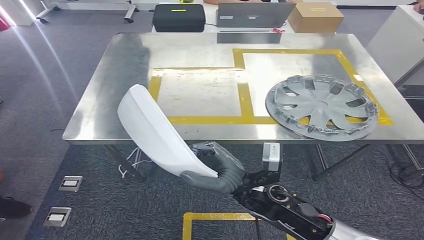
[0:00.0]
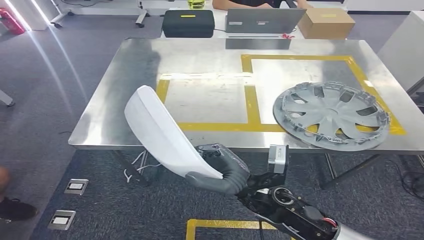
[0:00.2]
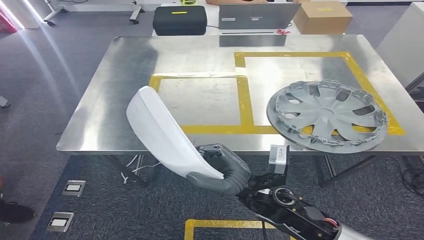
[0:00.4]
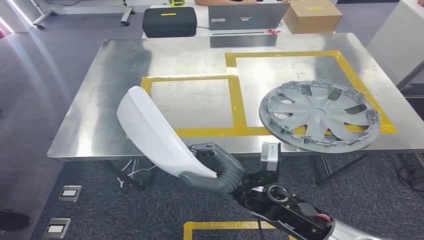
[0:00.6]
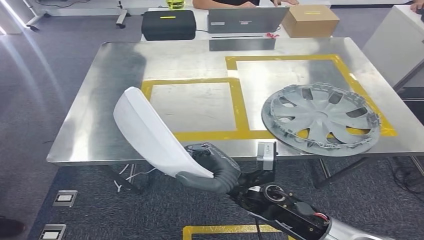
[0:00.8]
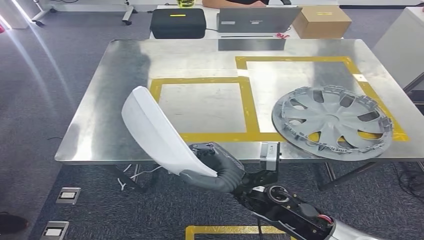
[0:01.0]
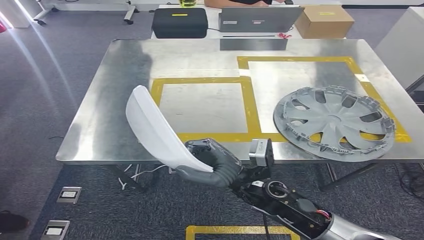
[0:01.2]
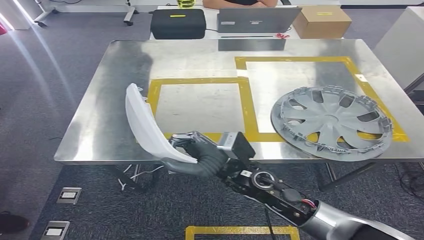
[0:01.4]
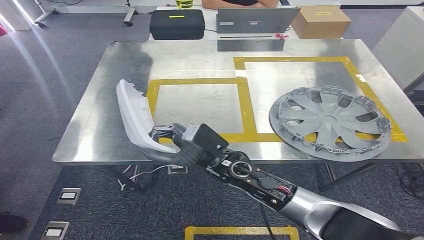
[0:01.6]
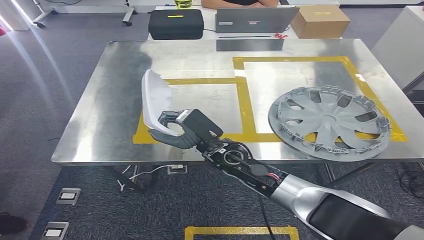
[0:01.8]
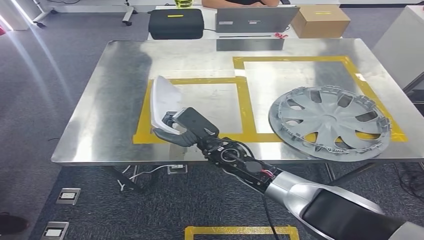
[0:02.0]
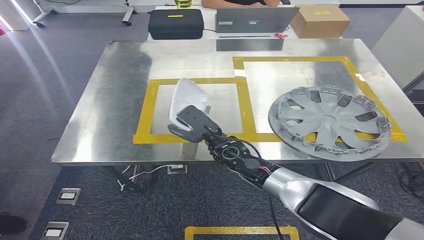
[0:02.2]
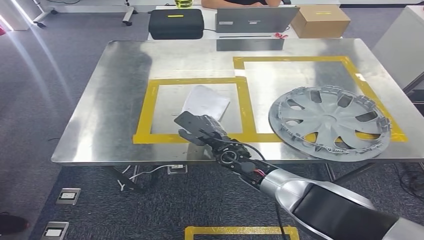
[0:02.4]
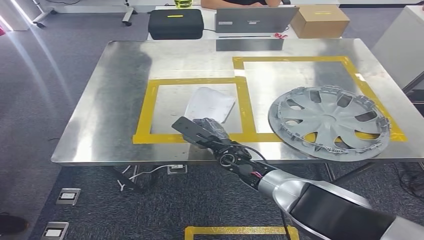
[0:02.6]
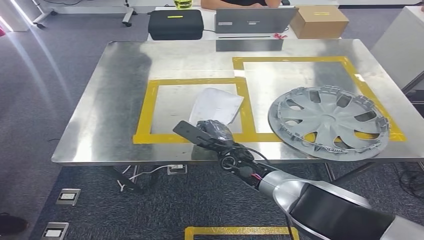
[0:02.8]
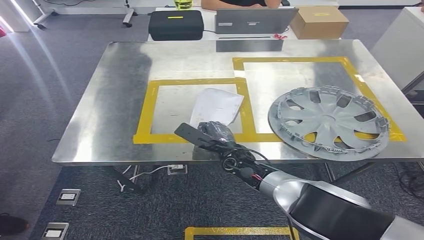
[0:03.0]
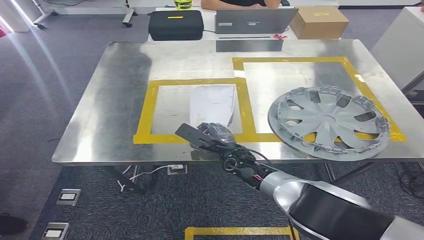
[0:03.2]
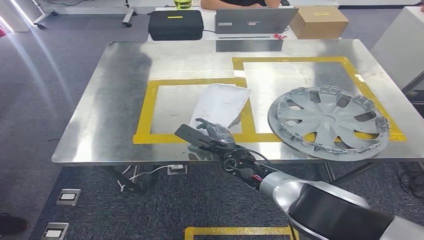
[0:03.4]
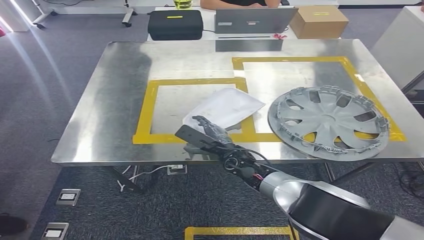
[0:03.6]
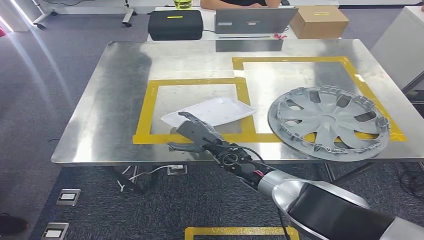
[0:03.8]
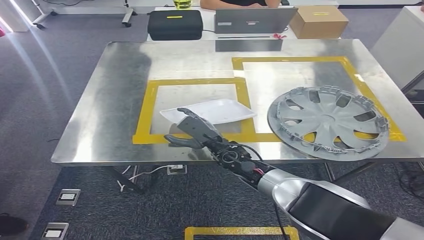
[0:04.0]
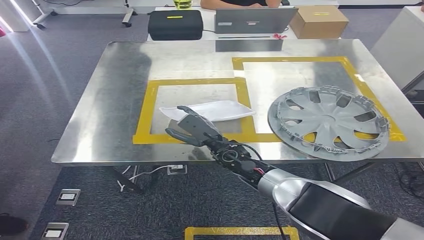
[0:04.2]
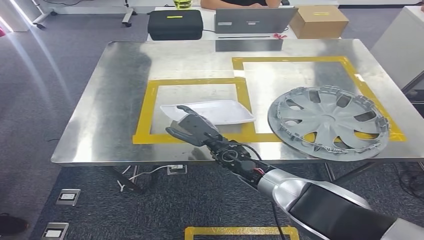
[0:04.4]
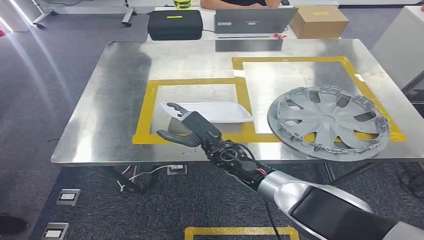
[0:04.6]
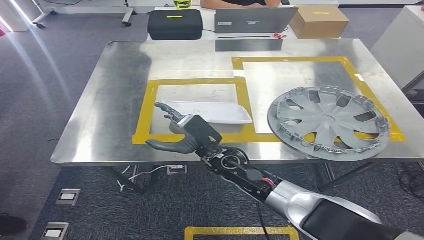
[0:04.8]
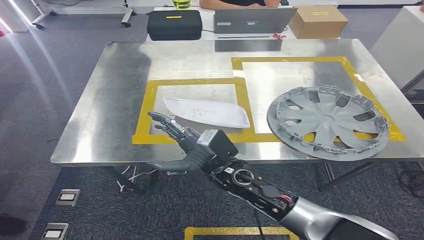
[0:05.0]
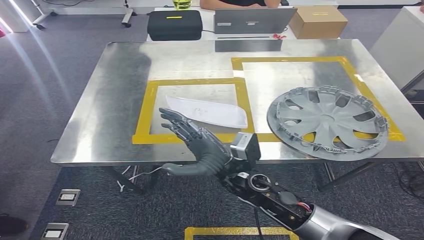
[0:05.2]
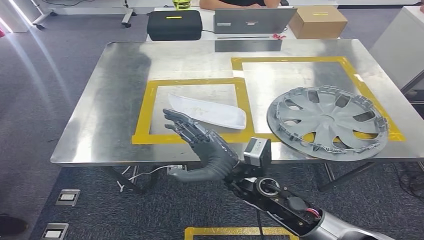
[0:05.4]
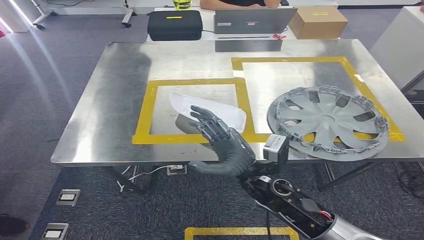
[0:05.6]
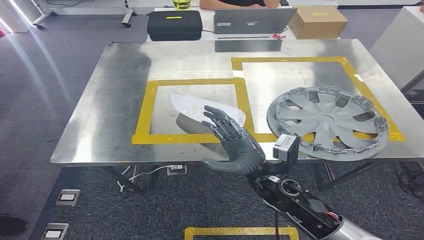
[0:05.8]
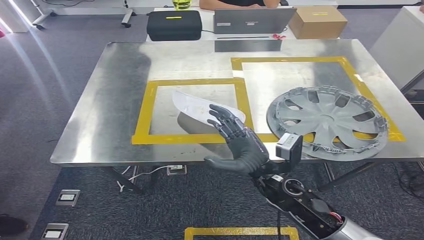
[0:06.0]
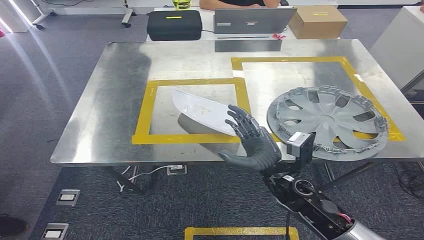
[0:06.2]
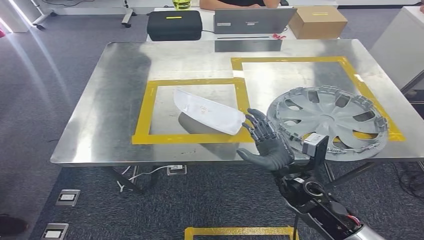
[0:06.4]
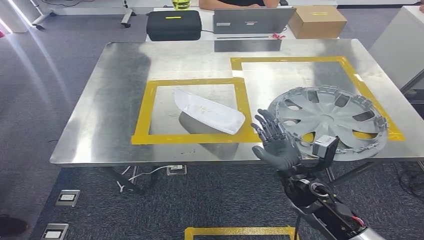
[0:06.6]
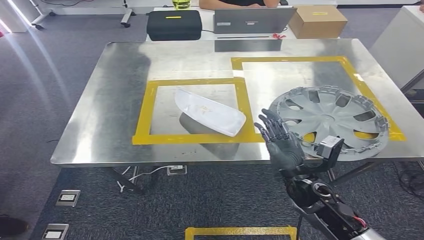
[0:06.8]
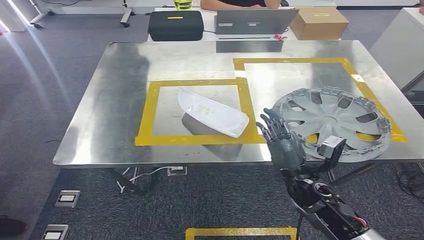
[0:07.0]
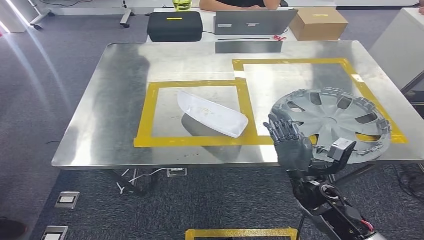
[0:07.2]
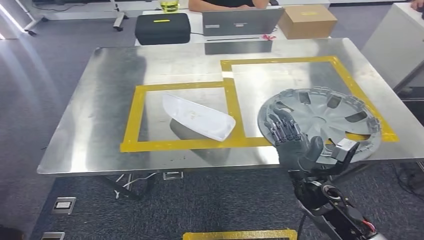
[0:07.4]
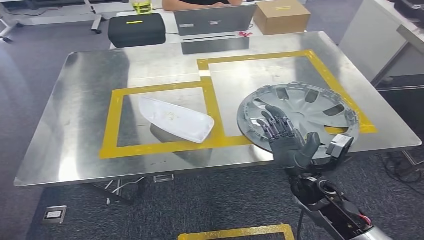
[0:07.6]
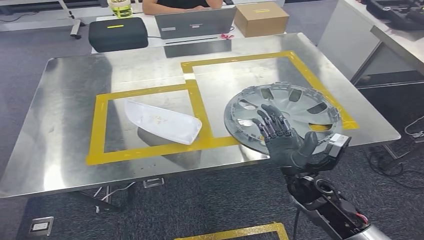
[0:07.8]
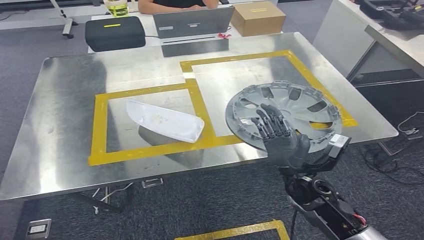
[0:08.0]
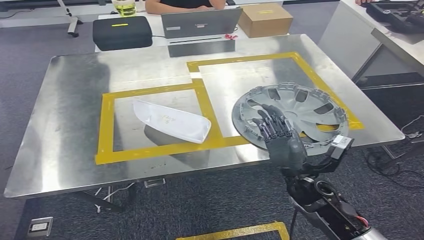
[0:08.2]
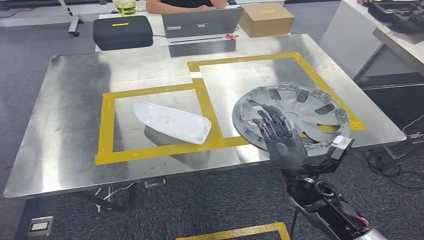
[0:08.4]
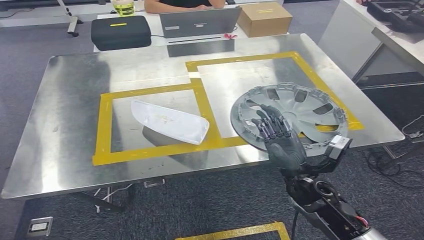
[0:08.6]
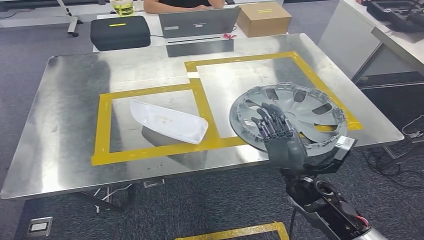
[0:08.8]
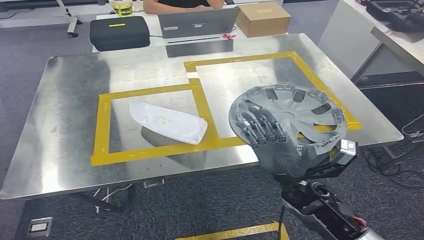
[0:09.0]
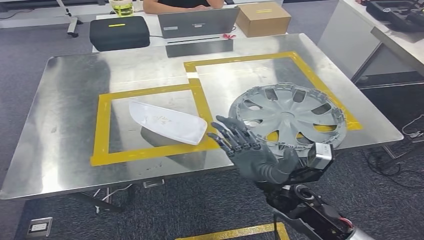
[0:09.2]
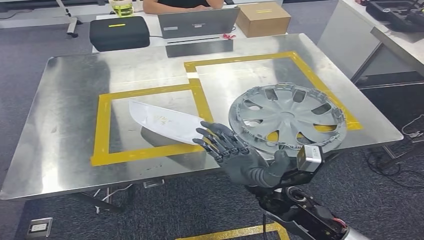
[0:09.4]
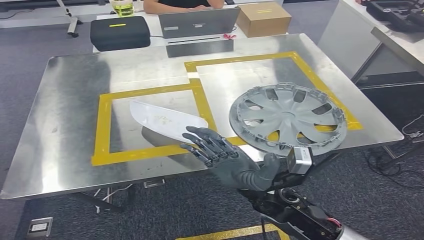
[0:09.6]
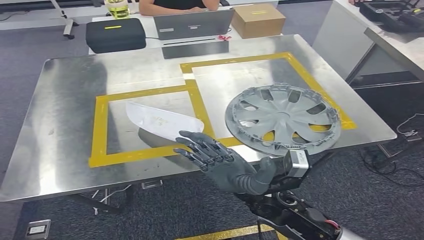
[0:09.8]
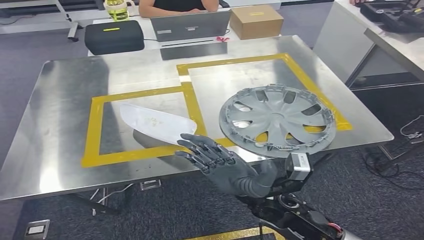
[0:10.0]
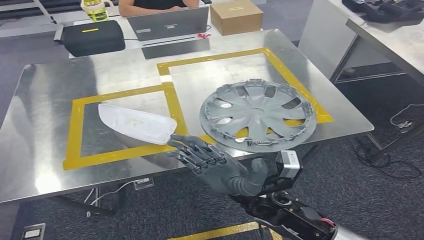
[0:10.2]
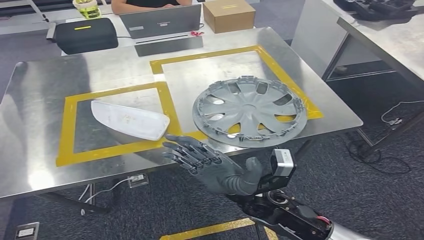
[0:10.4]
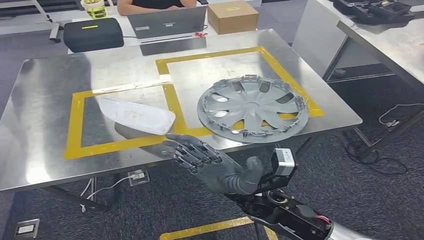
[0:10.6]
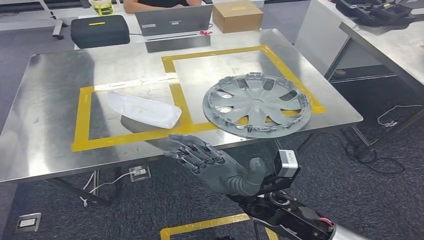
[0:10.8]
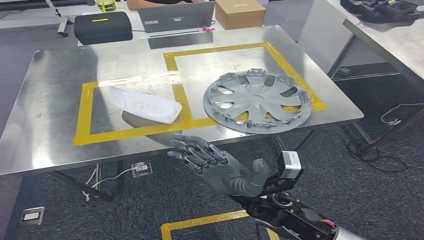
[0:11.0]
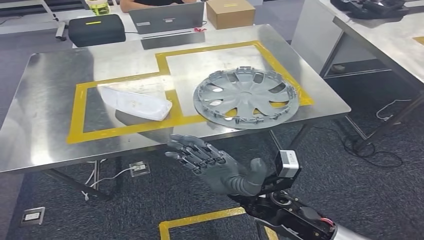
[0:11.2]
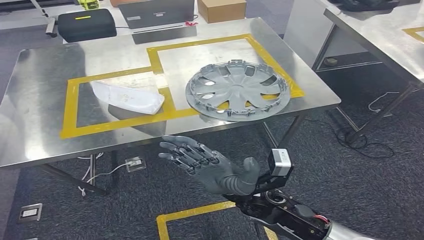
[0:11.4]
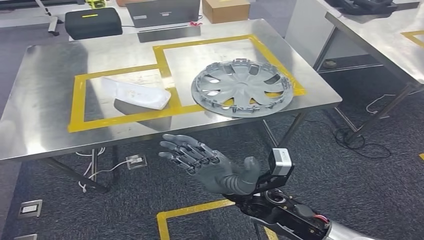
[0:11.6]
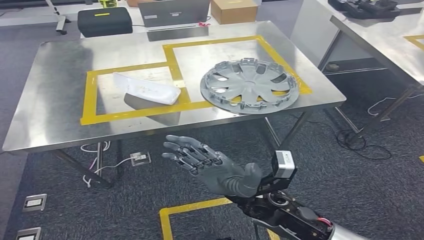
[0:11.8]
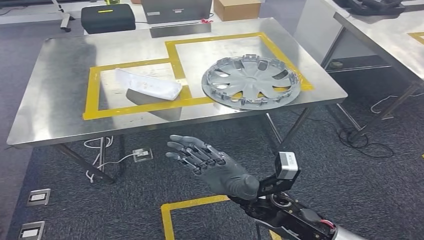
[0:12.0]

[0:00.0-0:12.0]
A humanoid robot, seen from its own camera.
Step, 0:02.2 to 0:10.8: Insert the small component into the corresponding slot on the workbench.
0:01.6 to 0:03.0: The right hand is displaced downward by some 10 cm.
0:04.4 to 0:06.0: The right hand moves backward and to the right, approximately 15 cm.

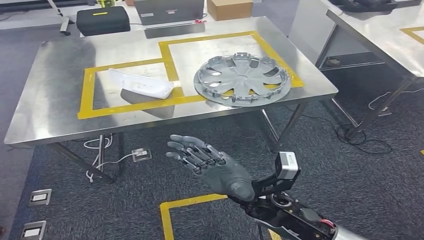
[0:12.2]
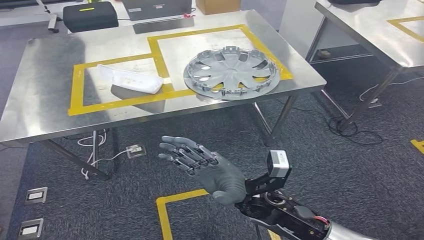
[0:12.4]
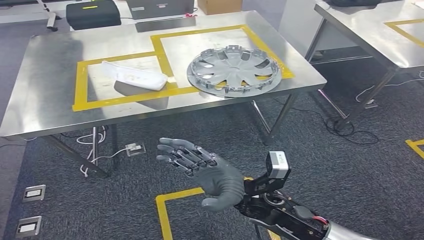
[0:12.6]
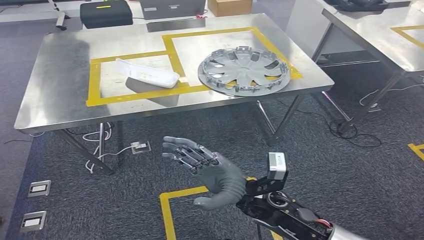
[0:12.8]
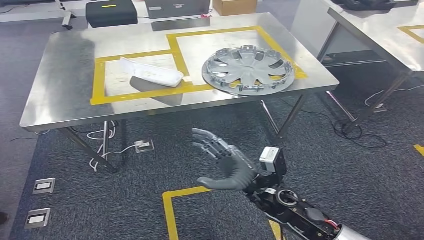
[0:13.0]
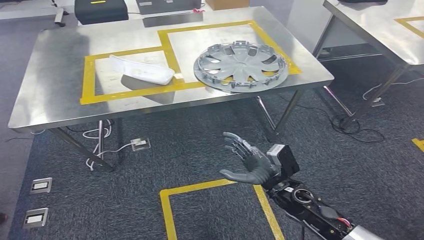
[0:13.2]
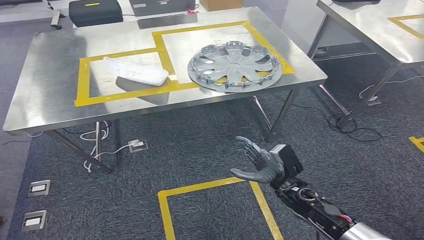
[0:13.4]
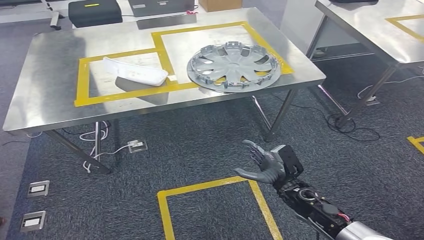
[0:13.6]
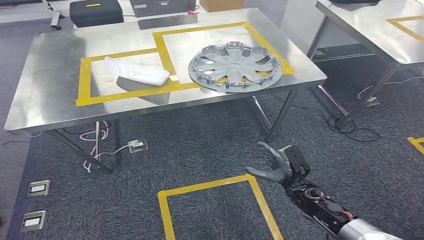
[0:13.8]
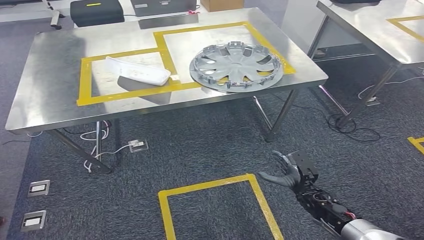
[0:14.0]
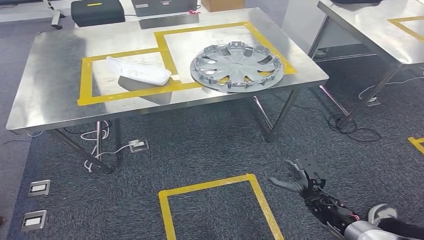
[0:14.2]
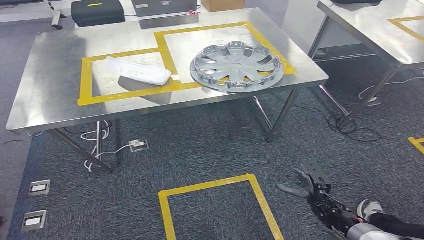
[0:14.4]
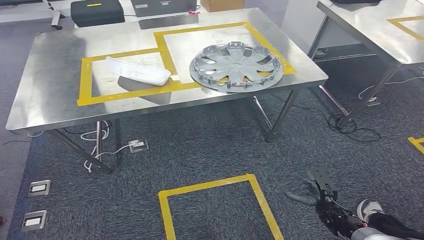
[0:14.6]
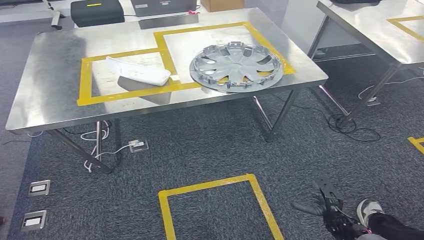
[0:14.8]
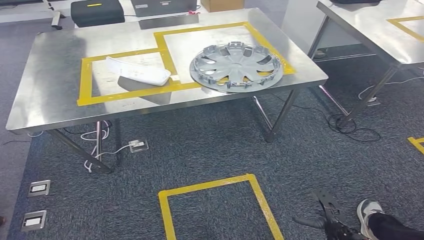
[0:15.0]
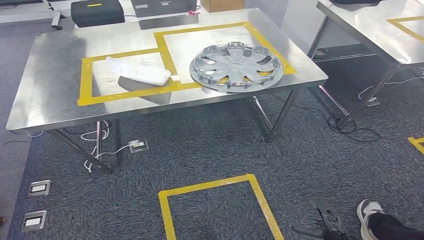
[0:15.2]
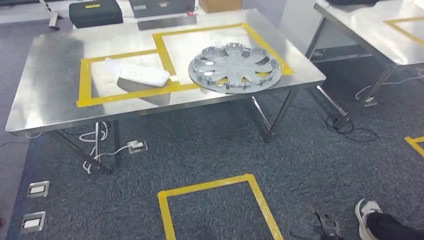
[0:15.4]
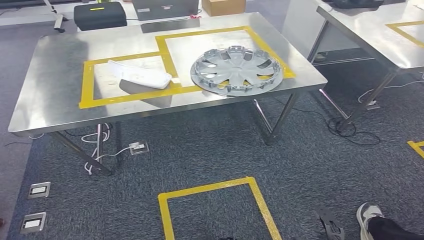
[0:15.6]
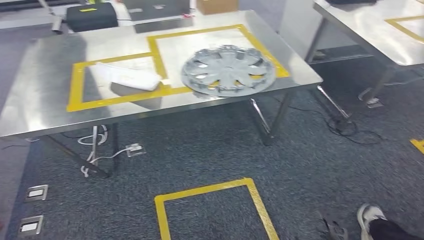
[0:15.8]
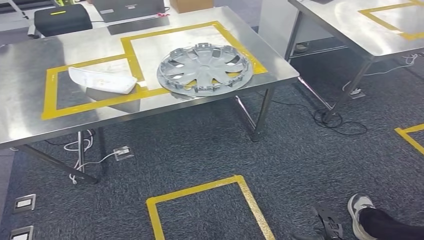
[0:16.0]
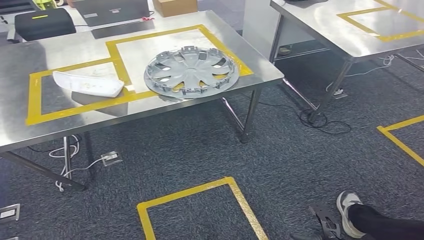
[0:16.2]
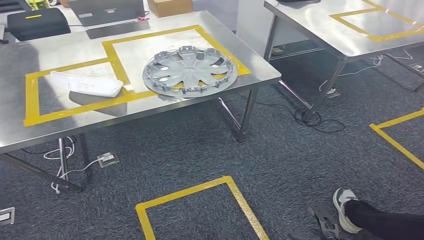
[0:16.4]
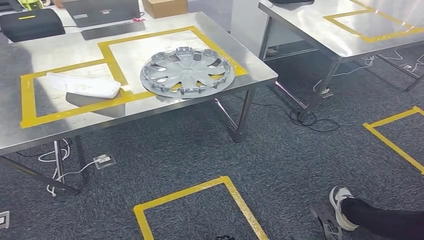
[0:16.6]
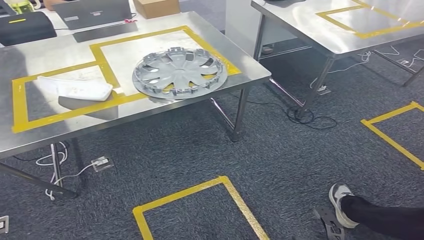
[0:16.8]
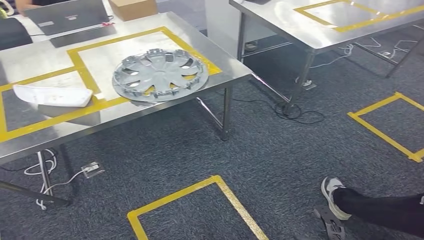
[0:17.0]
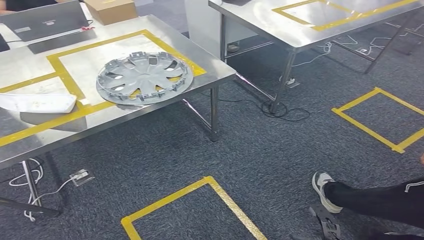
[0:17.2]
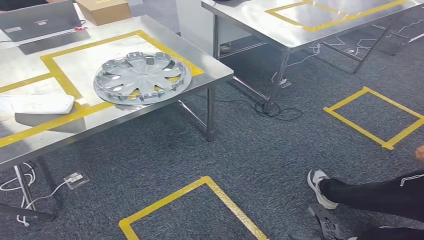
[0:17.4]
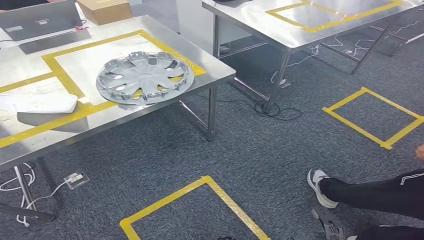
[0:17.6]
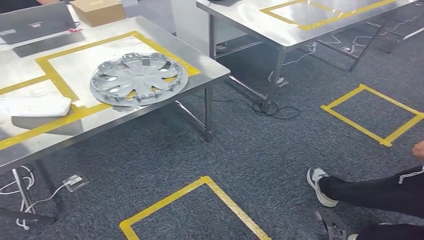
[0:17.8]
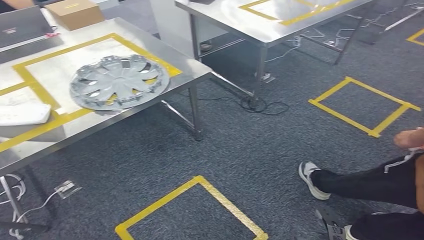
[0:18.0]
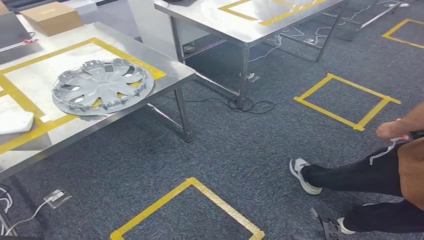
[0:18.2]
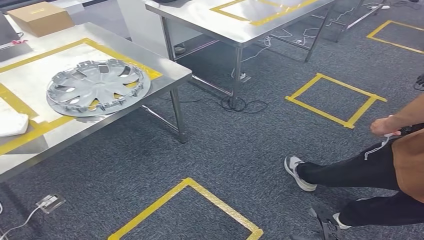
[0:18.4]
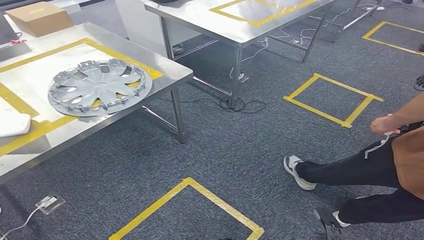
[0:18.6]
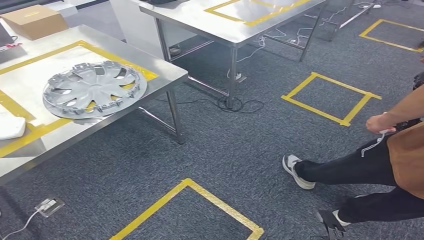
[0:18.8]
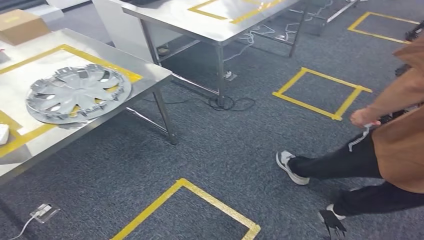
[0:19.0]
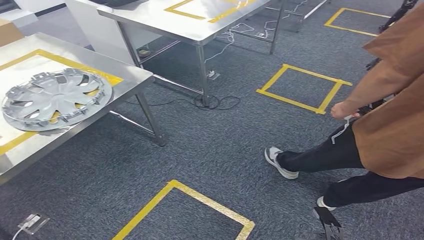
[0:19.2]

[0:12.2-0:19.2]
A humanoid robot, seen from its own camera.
0:13.6 to 0:15.0: The right hand is displaced backward, downward and to the right by approximately 20 cm.
